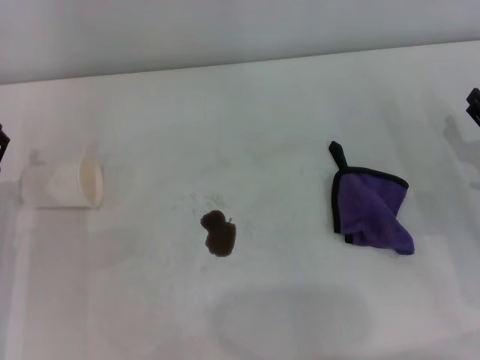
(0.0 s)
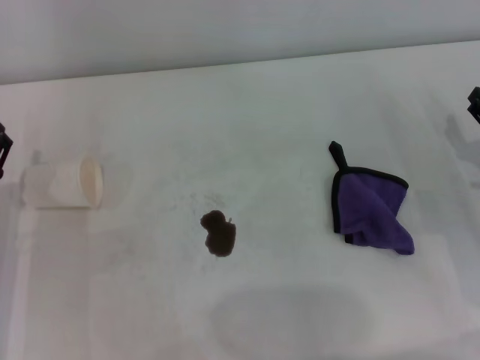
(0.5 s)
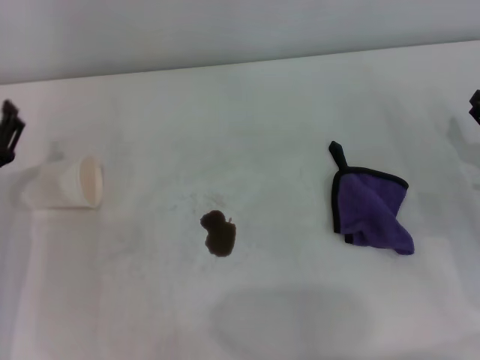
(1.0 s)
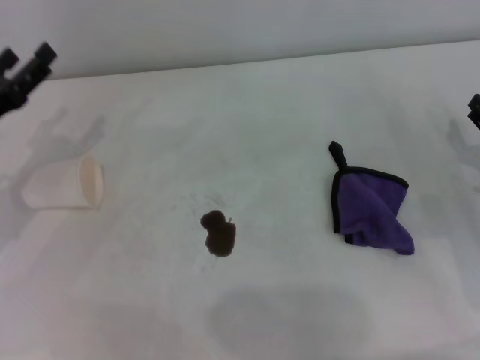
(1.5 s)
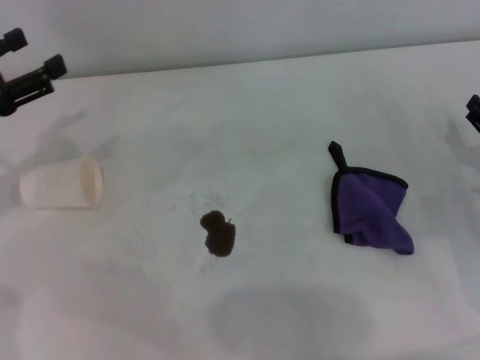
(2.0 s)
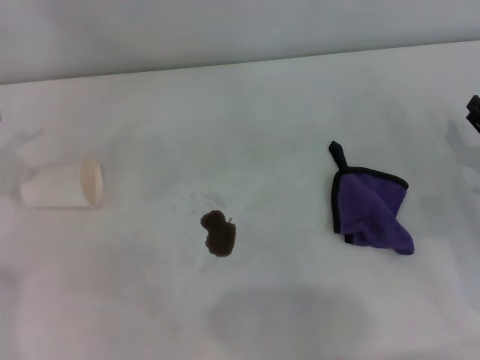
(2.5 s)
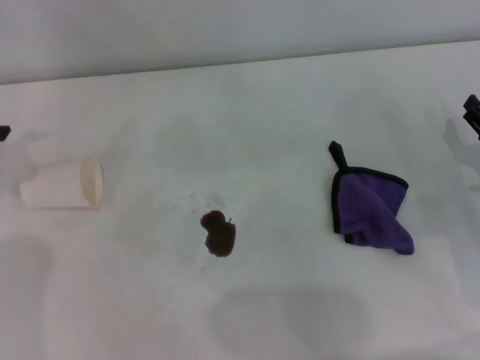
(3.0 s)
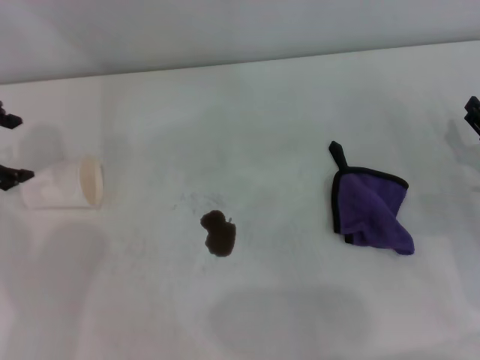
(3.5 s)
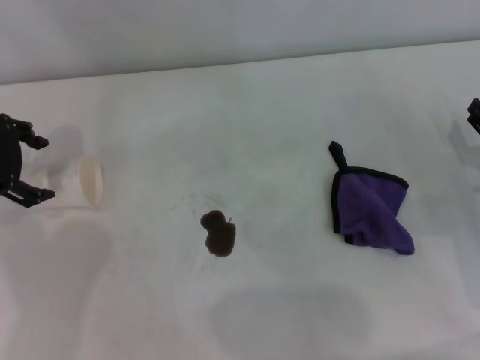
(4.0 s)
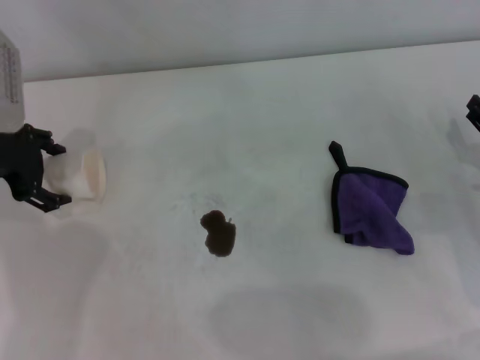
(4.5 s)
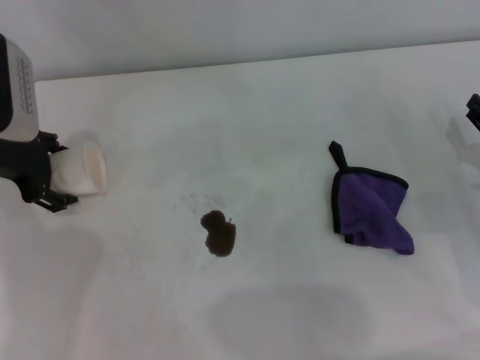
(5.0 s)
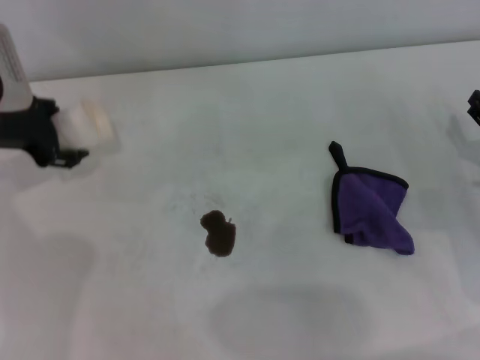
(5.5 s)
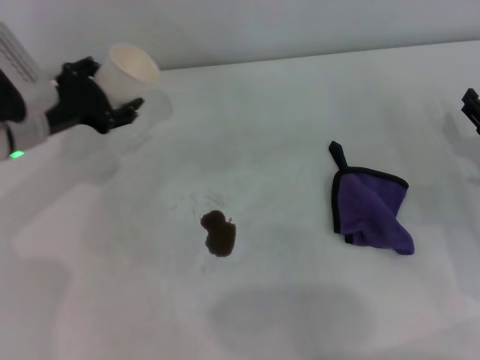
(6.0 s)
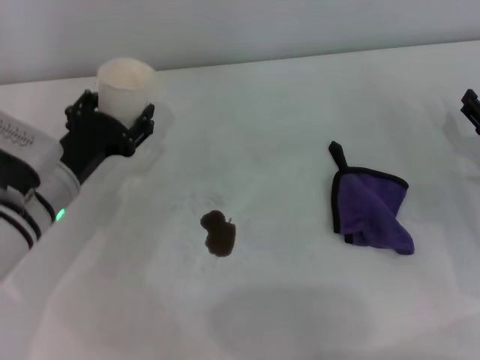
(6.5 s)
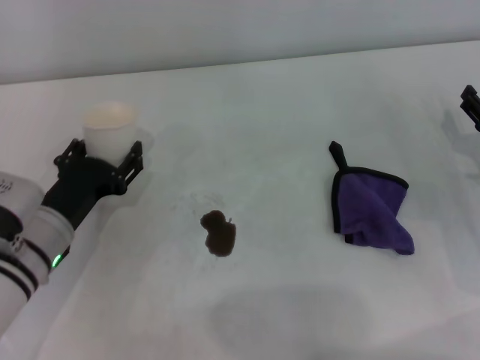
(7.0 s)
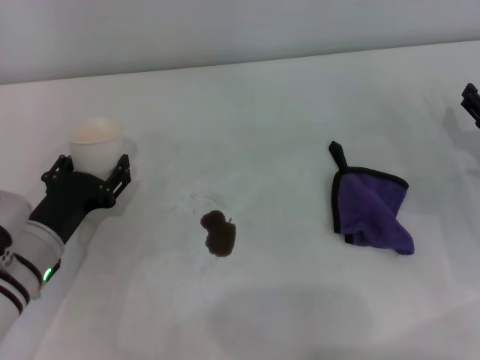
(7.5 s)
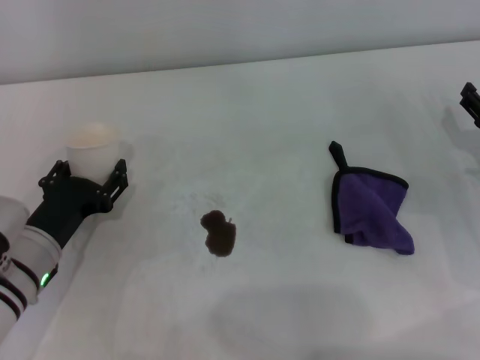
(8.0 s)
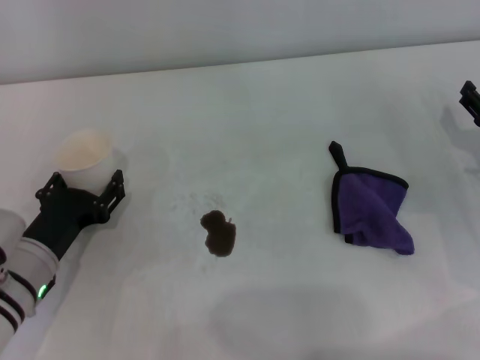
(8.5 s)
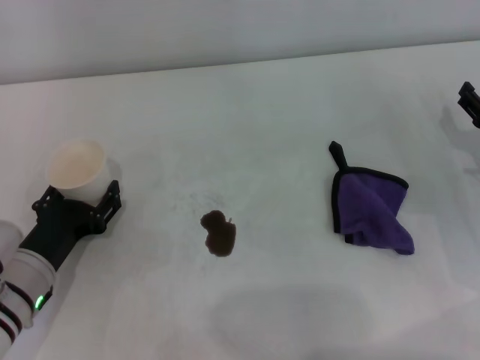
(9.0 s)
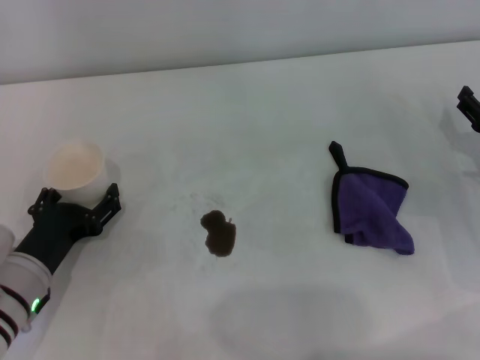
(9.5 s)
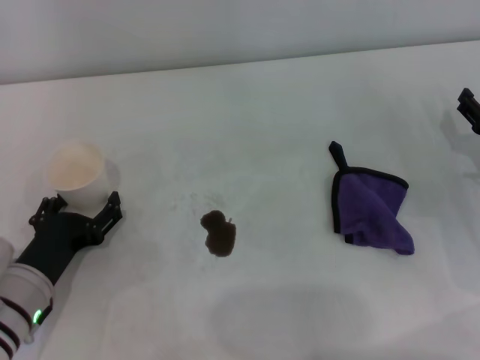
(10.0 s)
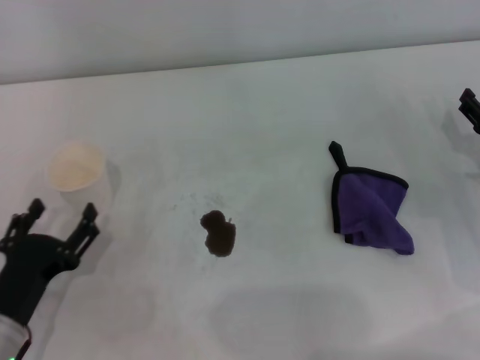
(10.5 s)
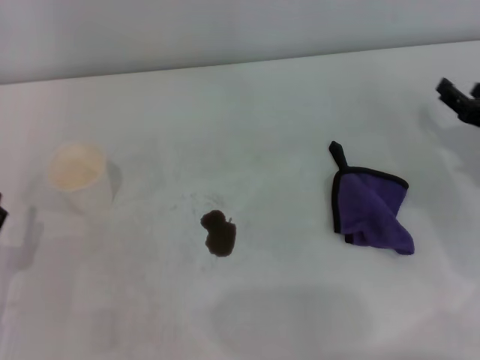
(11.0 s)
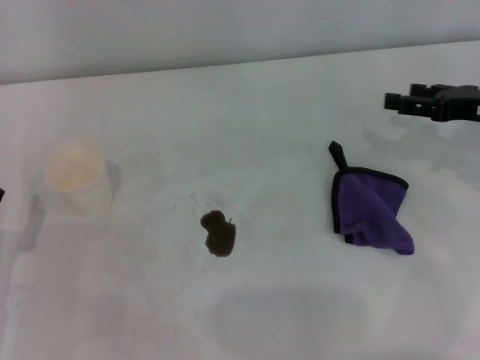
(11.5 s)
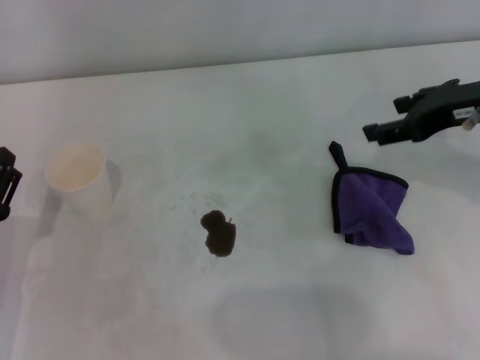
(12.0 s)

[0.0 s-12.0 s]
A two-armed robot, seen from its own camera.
Step, 0.0 to 4.5 s: Grasp the paper cup with the left gripper.
Step, 5.0 to 10.0 s: Stand the paper cup upright with the left gripper.
0.0 to 2.0 s: The left gripper heads upward and forward, covering roughly 15 cm.
2.0 to 4.0 s: The left gripper travels forward by roughly 5 cm.
4.0 to 6.0 s: The left gripper shifts some 10 cm downward and to the right, and closes its fingers.
6.0 to 8.0 s: The left gripper shifts about 15 cm backward and downward.
8.0 to 10.0 s: The left gripper opens its fingers.
10.0 to 12.0 s: The right gripper travels upward and to the left by some 20 cm. The left gripper changes place by approximately 5 cm.

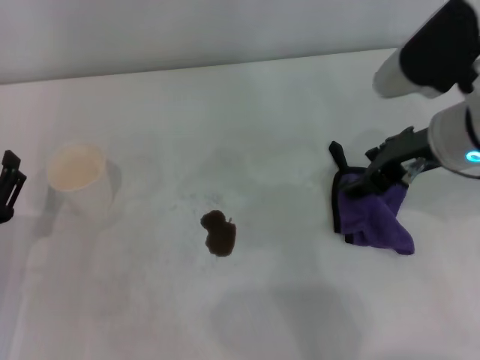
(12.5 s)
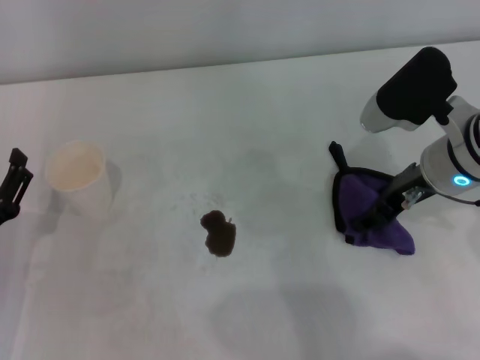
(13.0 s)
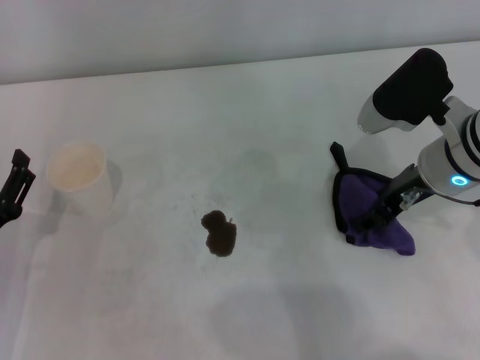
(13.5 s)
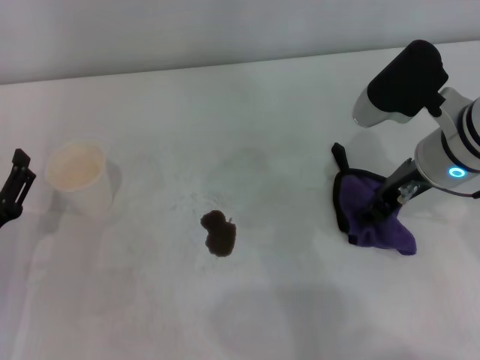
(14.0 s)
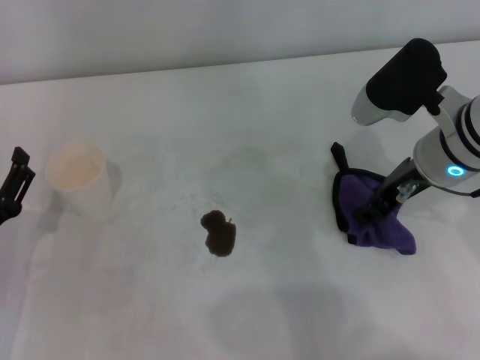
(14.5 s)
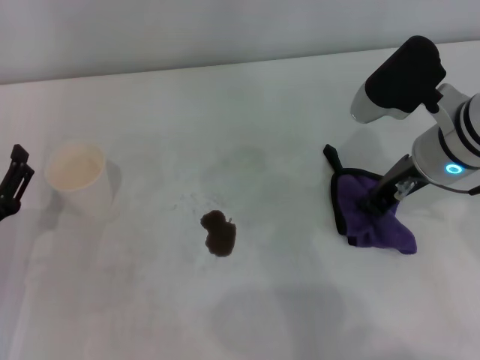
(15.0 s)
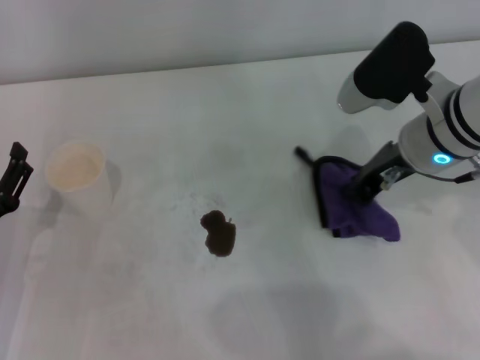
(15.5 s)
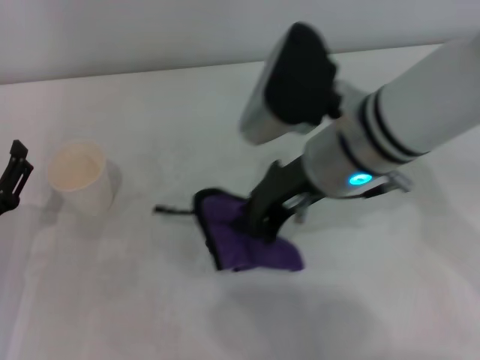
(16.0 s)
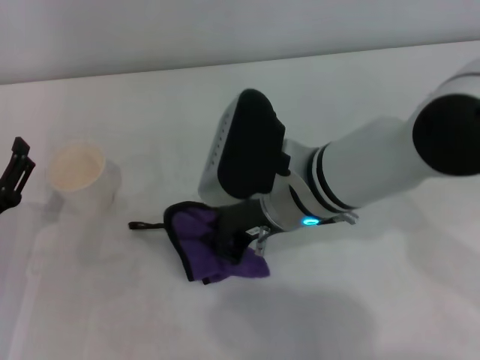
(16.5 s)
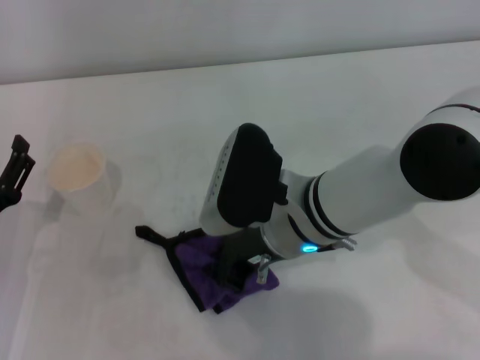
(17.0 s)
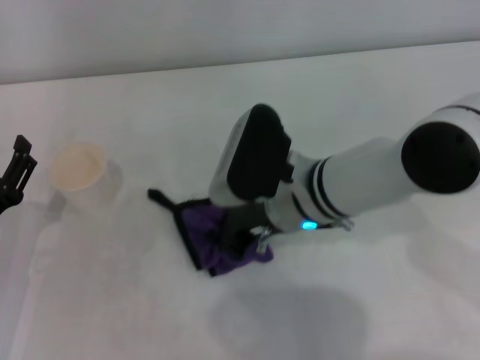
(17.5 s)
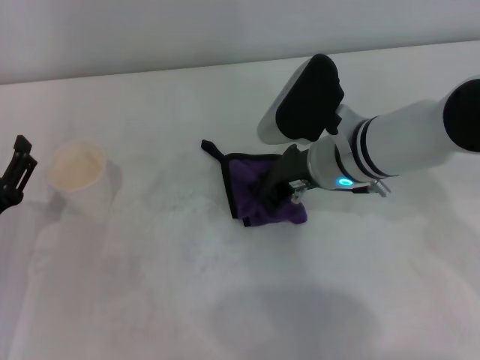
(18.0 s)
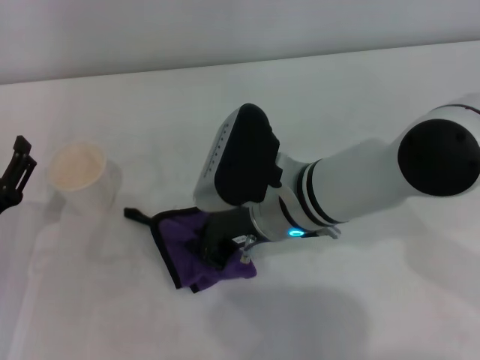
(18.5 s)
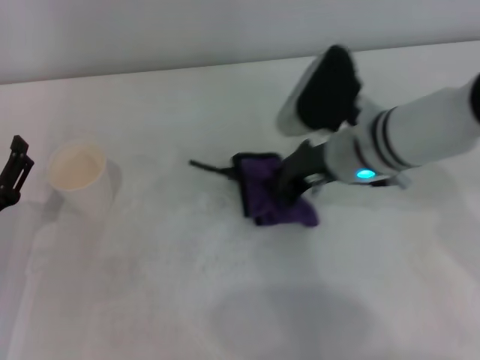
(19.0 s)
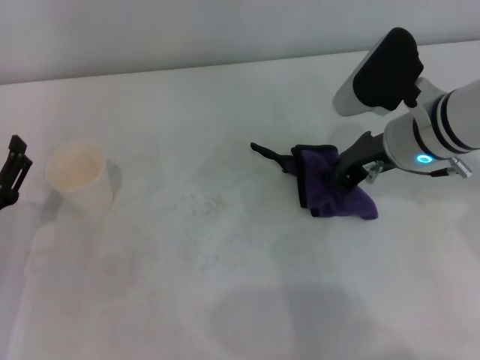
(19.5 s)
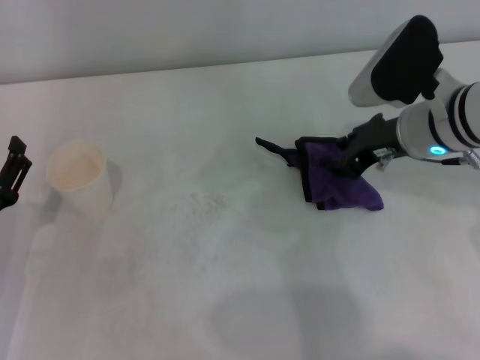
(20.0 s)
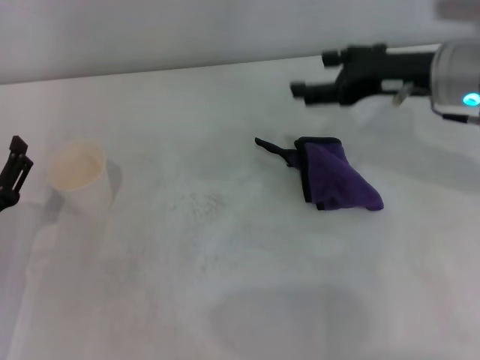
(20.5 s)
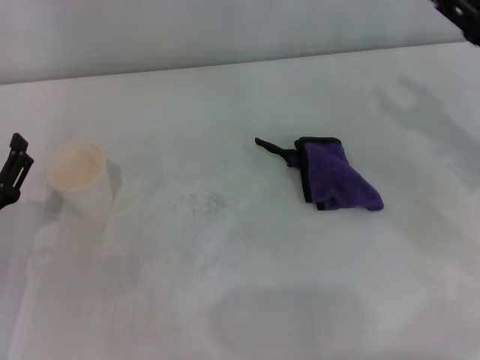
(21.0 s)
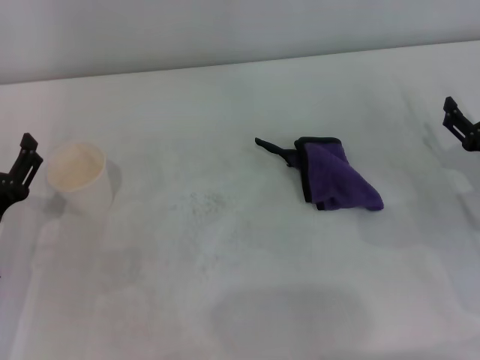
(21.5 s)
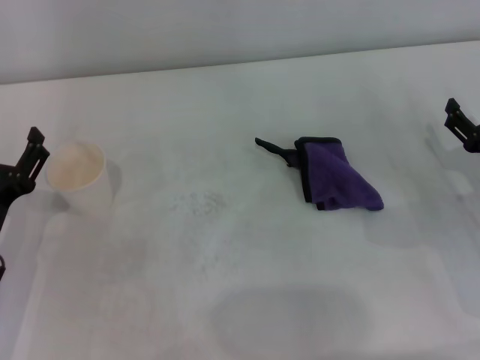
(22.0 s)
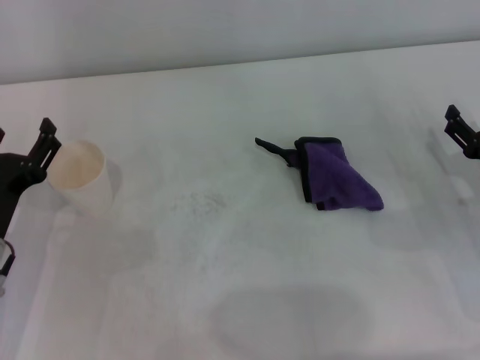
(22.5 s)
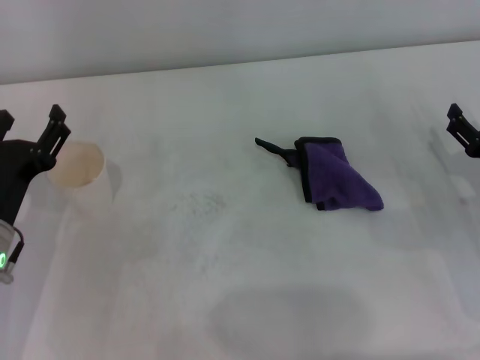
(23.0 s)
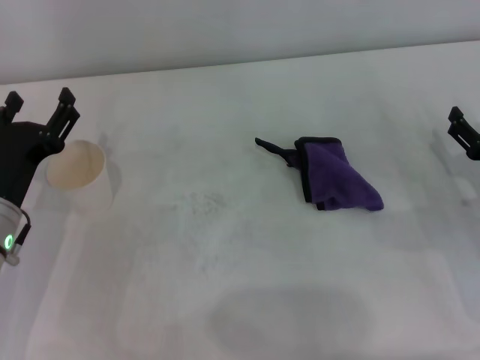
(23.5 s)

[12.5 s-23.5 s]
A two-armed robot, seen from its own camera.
Step, 12.5 to 15.0 s: Grasp the rag with the right gripper.
Step, 15.5 to 19.0 s: Wipe the stains off the table with the right gripper.
12.5 to 14.5 s: The right gripper closes its fingers.
14.5 to 16.0 s: The right gripper goes approximately 10 cm to the left, and closes up.
16.0 to 18.0 s: The right gripper travels downward by about 10 cm.
18.0 to 20.0 s: The right gripper goes roughly 10 cm to the right.
20.0 to 21.5 s: The right gripper heads to the right, downward and backward, covering roughly 20 cm, and opens.
21.5 to 23.5 s: The left gripper ends up about 5 cm from where it was.

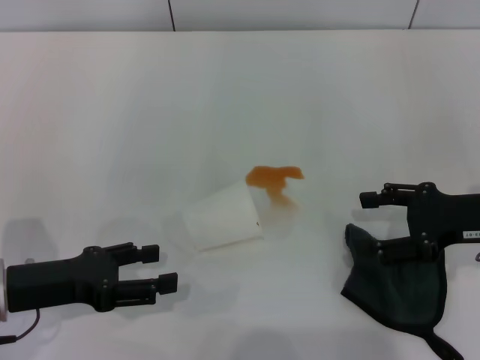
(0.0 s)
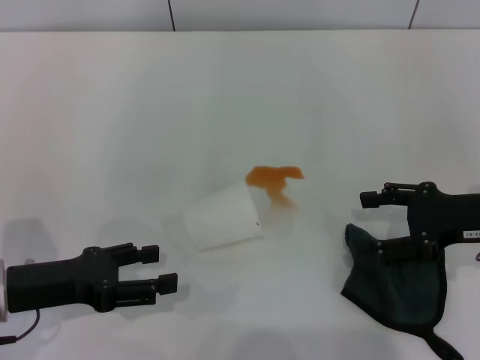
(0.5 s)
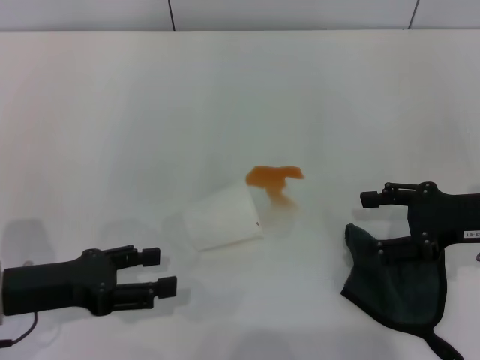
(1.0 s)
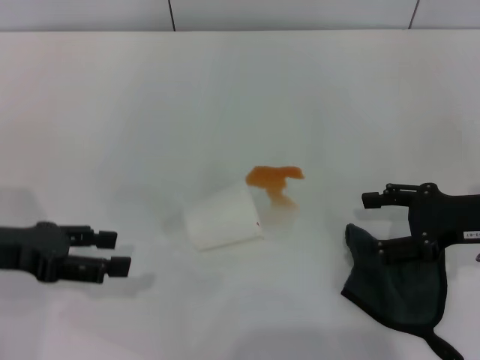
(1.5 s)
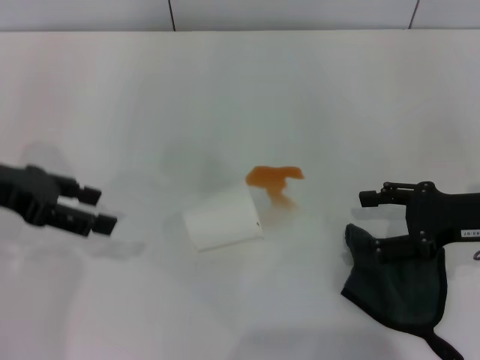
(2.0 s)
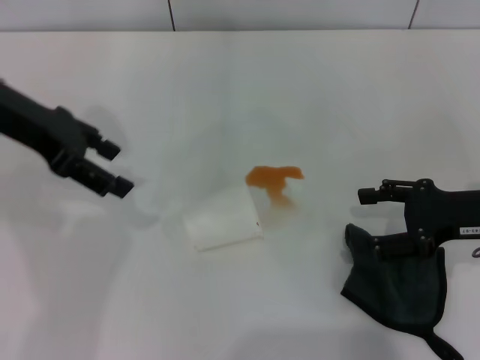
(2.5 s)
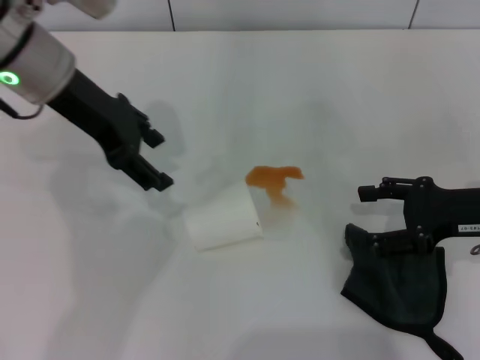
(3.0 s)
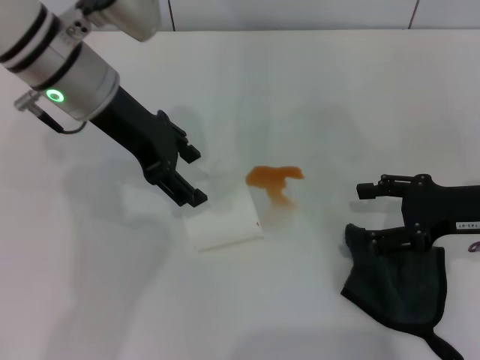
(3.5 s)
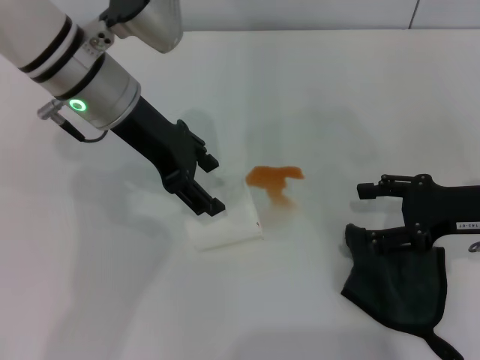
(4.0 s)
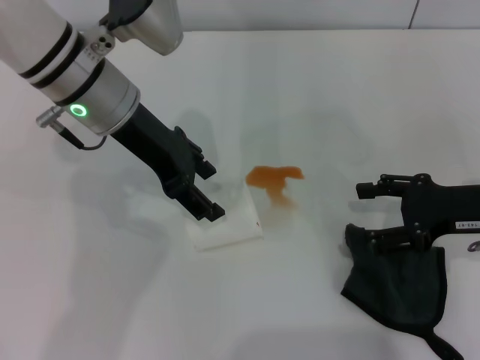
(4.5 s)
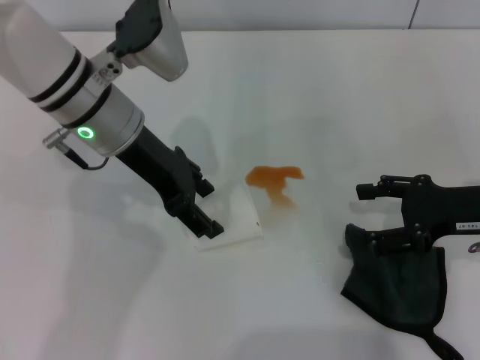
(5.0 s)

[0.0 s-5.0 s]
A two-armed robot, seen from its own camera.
0.0 to 2.5 s: The left gripper goes some 20 cm upward and forward.
2.5 to 5.0 s: The left gripper is displaced to the right and downward by approximately 15 cm.
